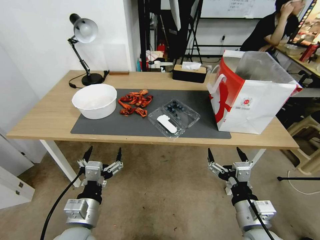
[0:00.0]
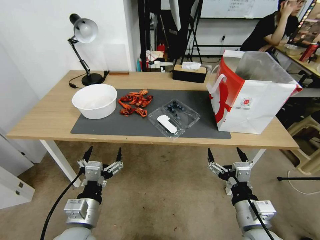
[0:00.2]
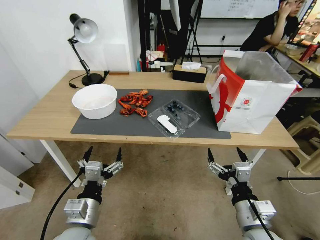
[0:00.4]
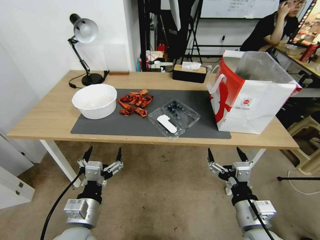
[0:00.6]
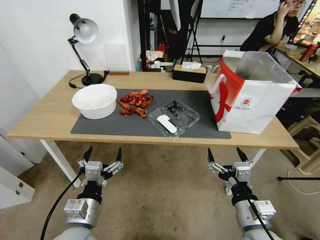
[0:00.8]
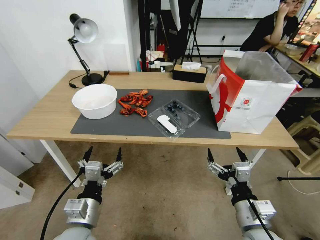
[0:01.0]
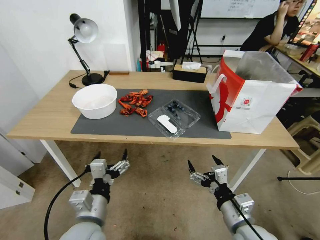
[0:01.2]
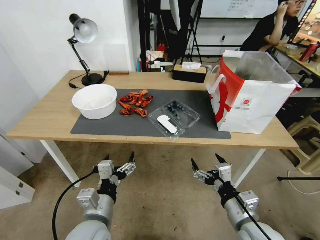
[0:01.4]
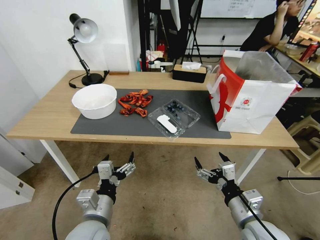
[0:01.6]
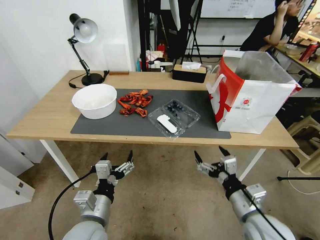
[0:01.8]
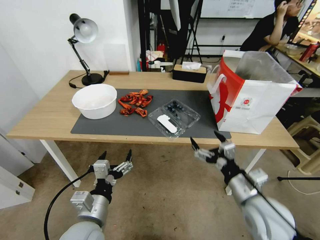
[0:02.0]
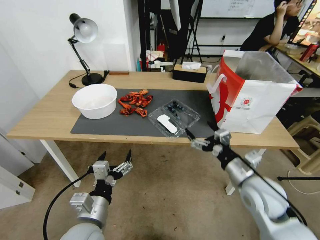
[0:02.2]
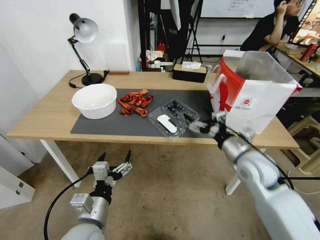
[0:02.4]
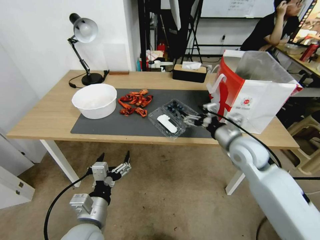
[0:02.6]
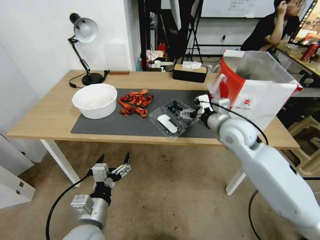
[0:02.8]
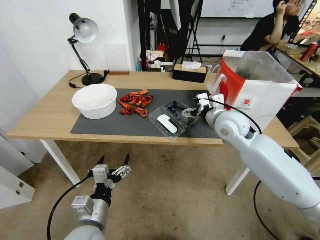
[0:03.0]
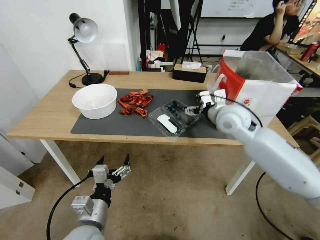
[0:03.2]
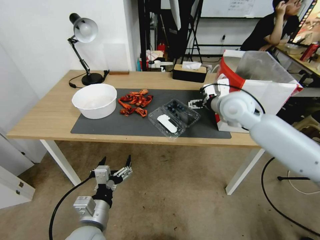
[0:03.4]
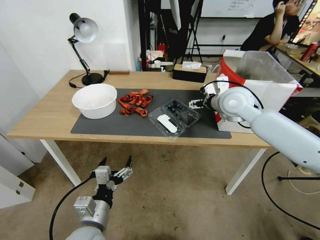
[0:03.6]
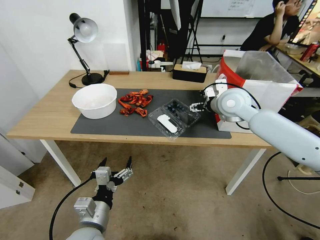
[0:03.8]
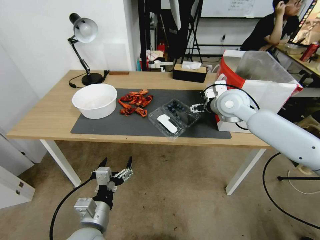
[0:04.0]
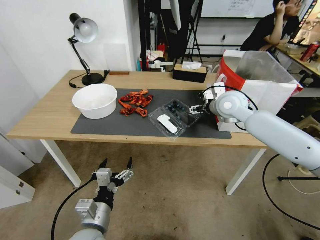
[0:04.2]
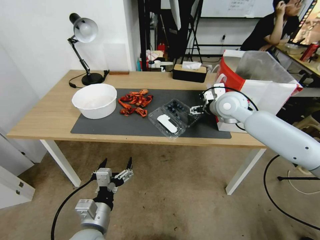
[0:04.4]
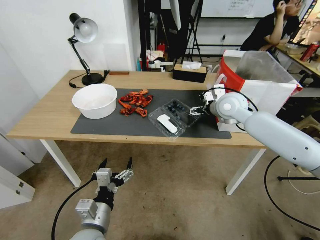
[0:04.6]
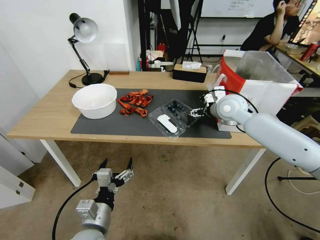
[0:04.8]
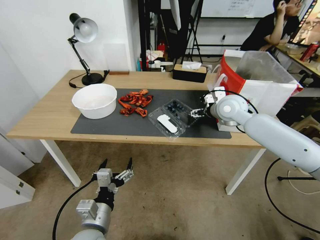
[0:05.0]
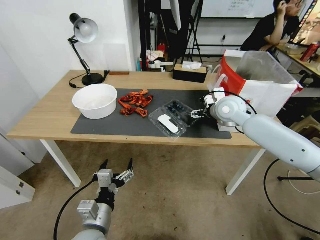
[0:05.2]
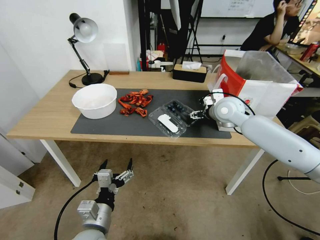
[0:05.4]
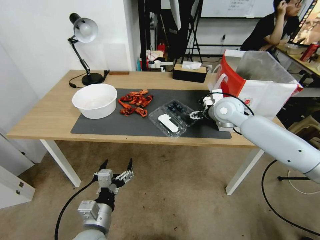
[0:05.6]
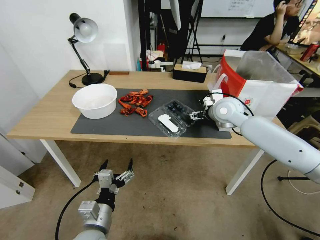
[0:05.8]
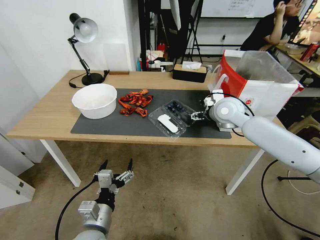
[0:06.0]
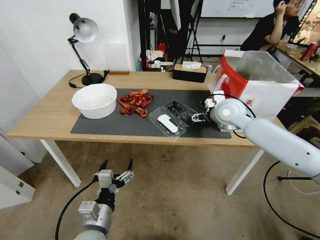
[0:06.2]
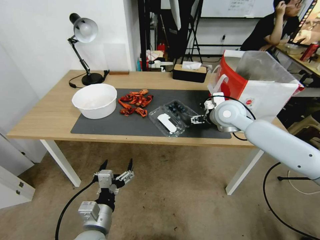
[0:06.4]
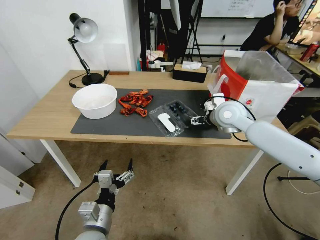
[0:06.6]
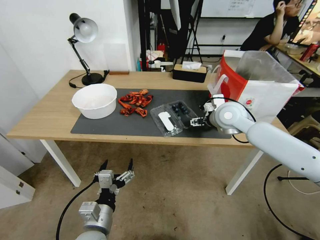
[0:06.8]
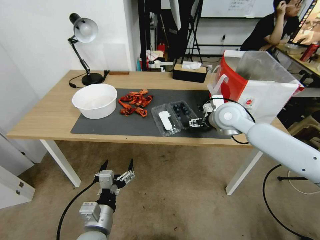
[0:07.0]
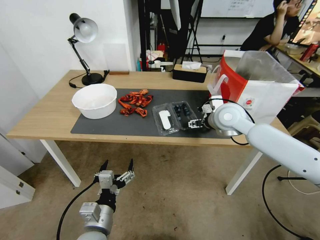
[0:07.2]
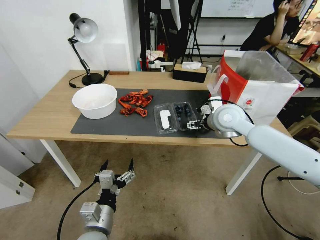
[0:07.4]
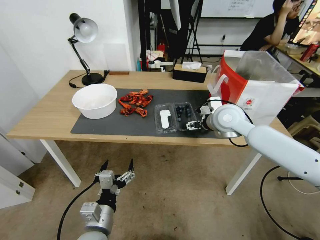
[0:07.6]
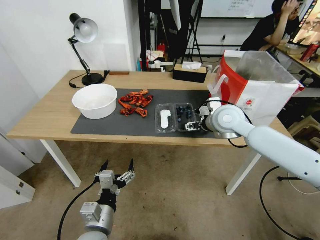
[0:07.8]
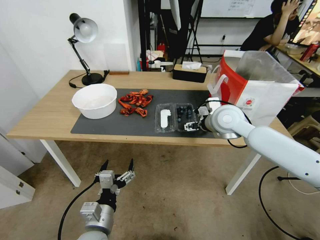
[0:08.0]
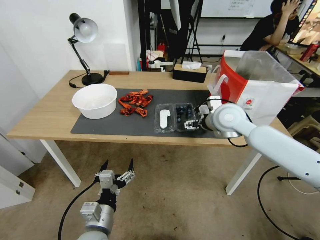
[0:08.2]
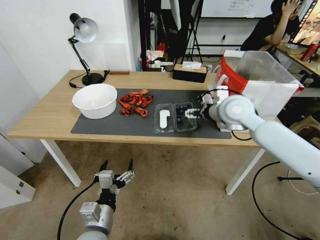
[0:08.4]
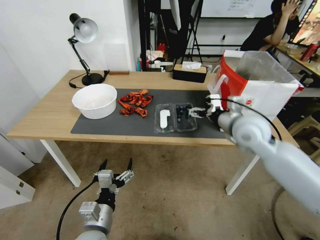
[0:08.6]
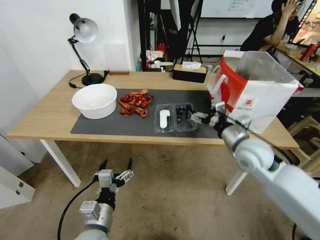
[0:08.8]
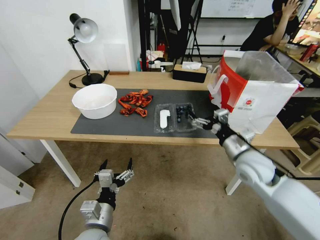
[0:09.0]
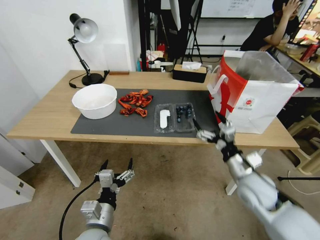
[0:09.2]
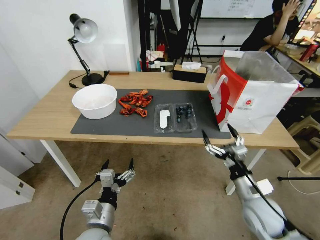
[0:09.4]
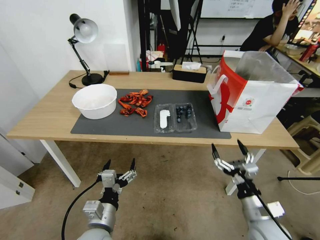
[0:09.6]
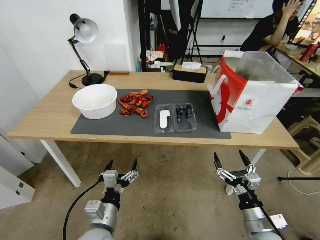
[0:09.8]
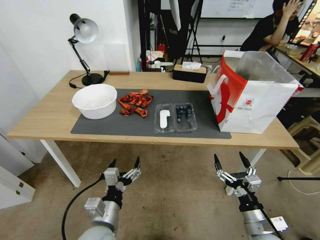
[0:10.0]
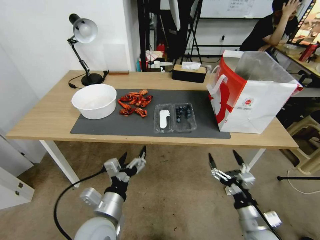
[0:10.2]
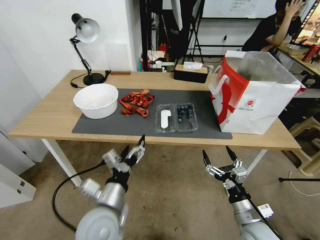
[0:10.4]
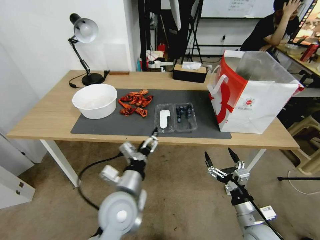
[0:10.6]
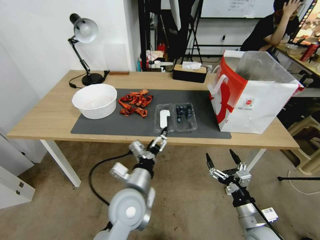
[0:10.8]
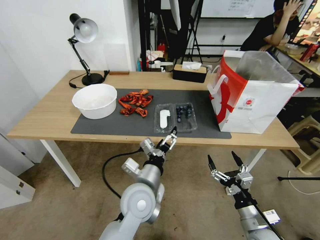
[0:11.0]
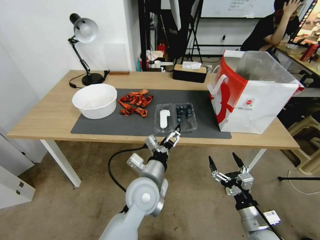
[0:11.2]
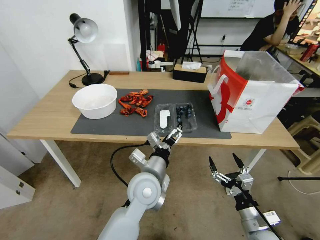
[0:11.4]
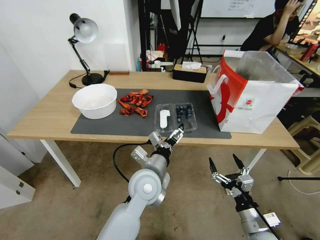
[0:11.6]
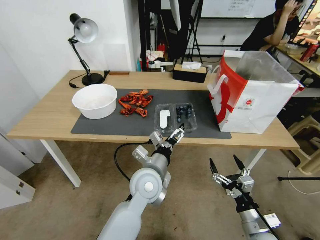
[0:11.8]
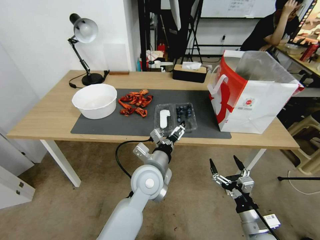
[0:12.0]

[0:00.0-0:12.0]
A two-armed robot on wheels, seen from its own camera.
Task of the whole recording: Close the takeout container lid, then place the container into the takeout bag.
0:01.6 to 0:03.0: The right gripper shifts approximately 30 cm forward and upward.
0:03.0 to 0:04.4: The right gripper shifts approximately 5 cm forward.
0:04.4 to 0:07.6: There are only small adjustments of the grippers.
0:07.6 to 0:09.0: The right gripper moves backward, downward and to the right, some 15 cm.
0:09.0 to 0:10.4: The left gripper is displaced upward by about 5 cm, while the right gripper moves backward and downward, roughly 20 cm.
0:10.4 to 0:12.0: The left gripper heads to the right and forward, covering about 15 cm.

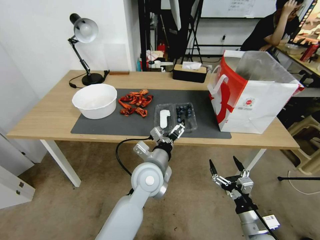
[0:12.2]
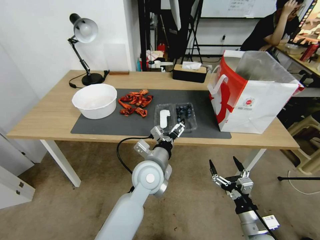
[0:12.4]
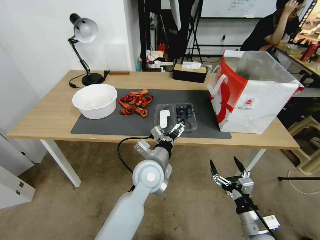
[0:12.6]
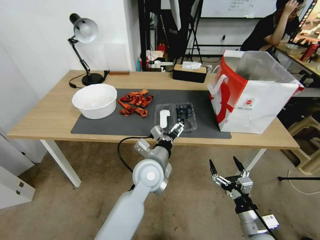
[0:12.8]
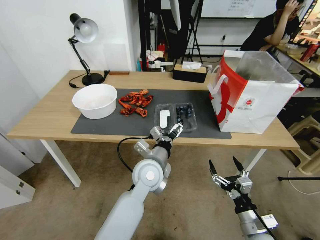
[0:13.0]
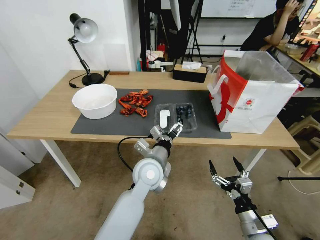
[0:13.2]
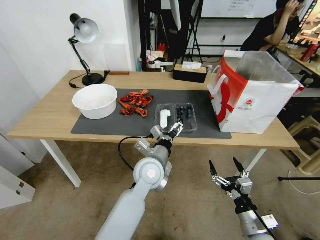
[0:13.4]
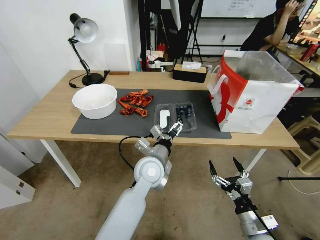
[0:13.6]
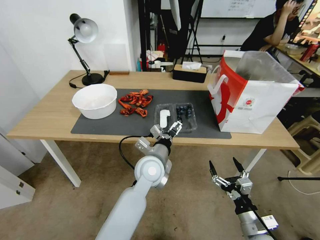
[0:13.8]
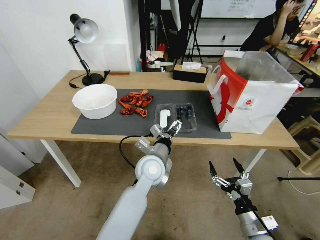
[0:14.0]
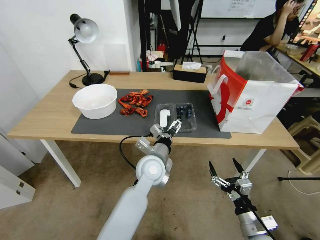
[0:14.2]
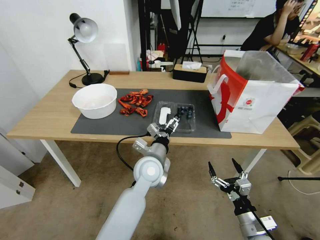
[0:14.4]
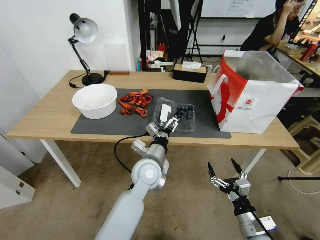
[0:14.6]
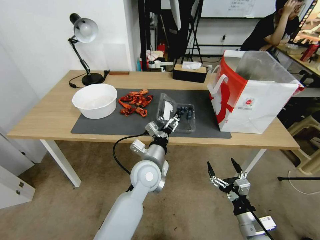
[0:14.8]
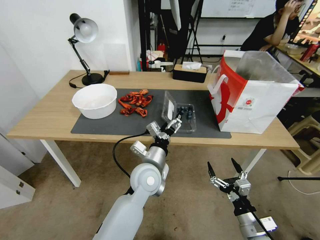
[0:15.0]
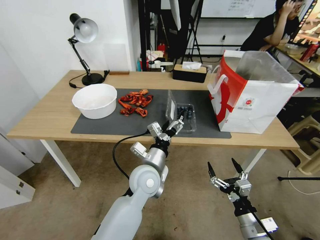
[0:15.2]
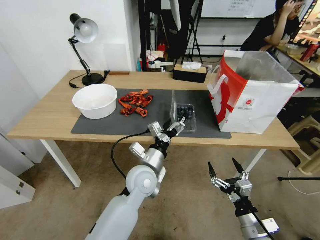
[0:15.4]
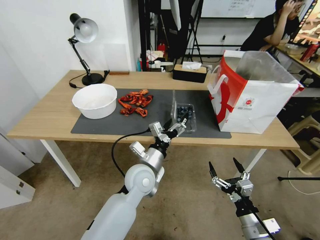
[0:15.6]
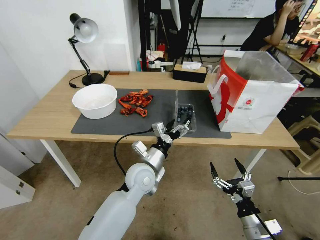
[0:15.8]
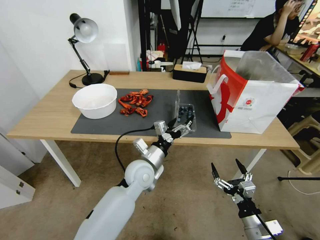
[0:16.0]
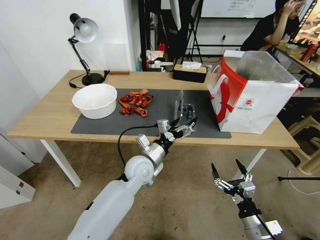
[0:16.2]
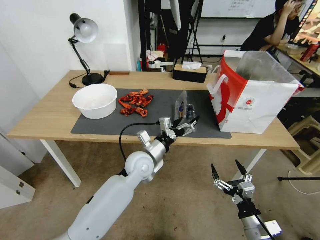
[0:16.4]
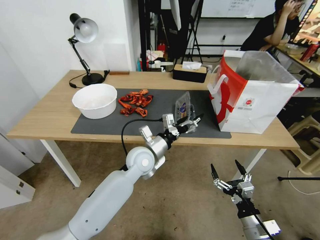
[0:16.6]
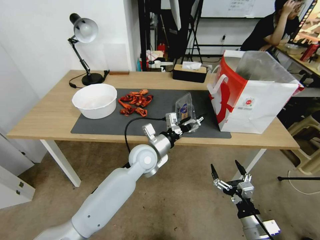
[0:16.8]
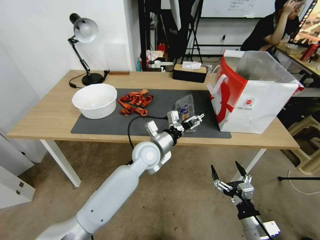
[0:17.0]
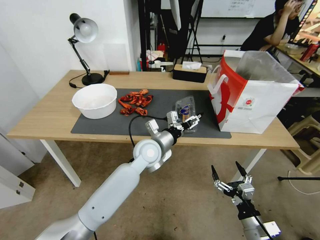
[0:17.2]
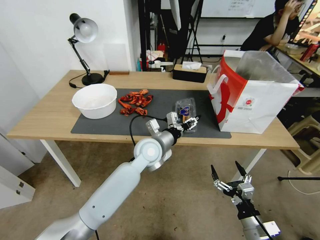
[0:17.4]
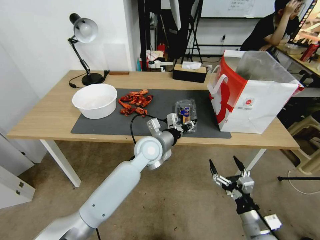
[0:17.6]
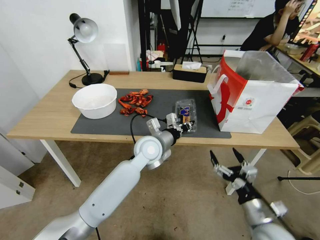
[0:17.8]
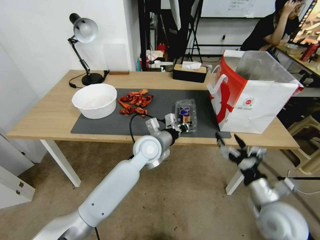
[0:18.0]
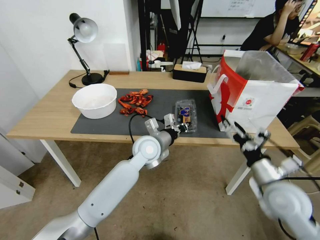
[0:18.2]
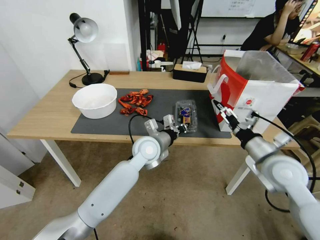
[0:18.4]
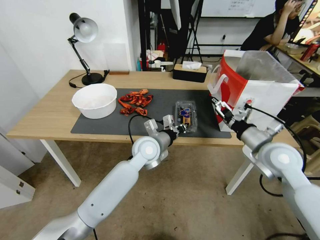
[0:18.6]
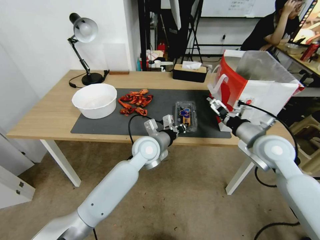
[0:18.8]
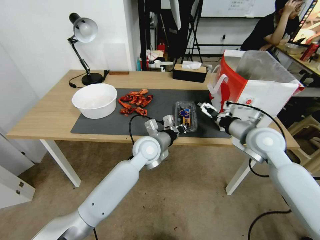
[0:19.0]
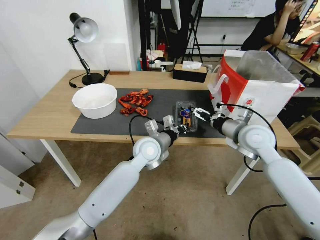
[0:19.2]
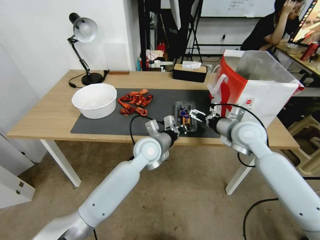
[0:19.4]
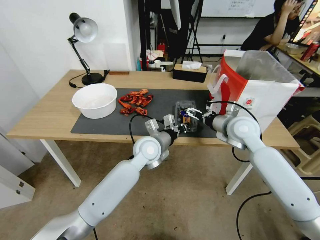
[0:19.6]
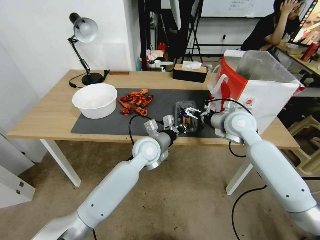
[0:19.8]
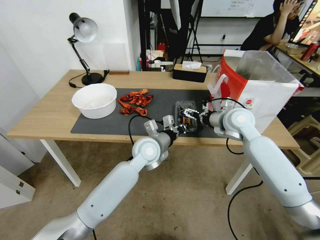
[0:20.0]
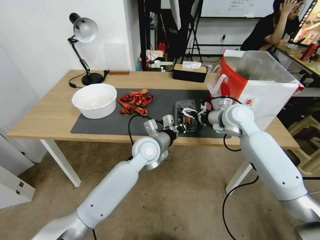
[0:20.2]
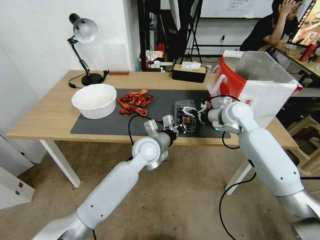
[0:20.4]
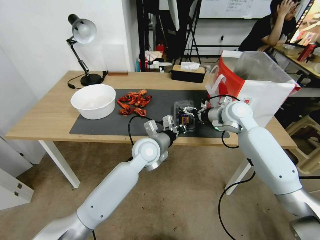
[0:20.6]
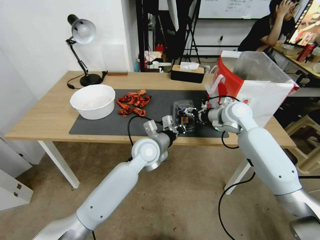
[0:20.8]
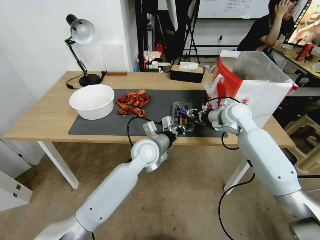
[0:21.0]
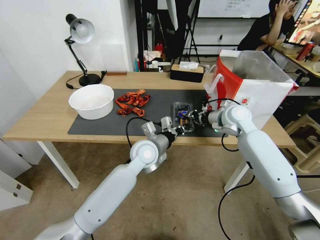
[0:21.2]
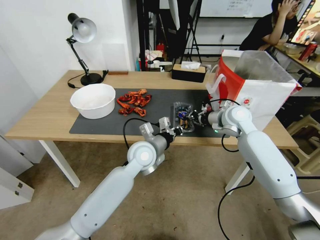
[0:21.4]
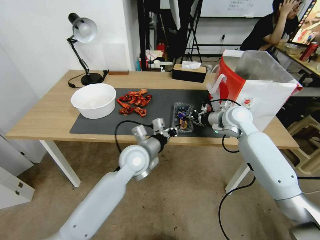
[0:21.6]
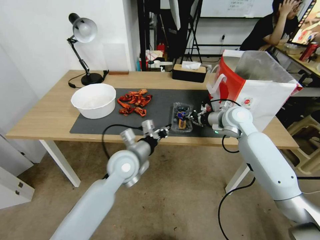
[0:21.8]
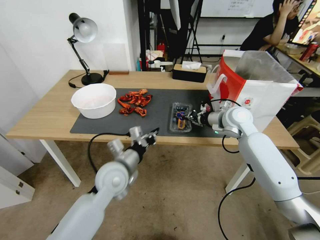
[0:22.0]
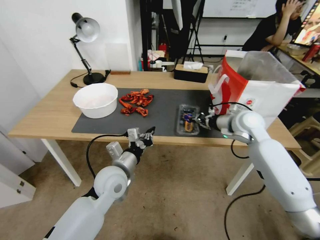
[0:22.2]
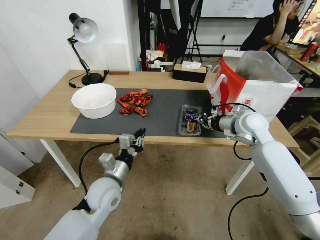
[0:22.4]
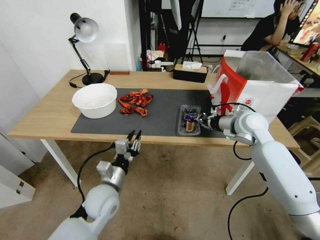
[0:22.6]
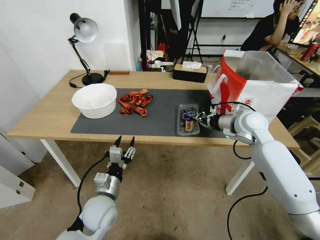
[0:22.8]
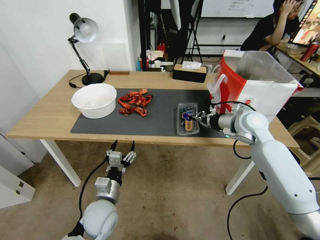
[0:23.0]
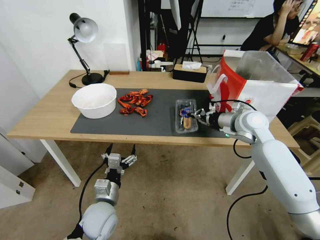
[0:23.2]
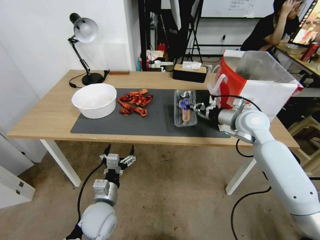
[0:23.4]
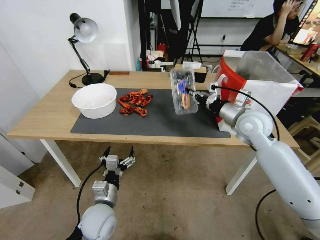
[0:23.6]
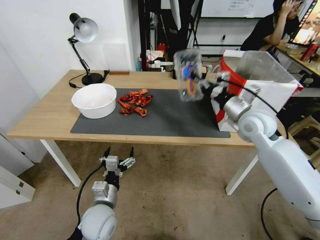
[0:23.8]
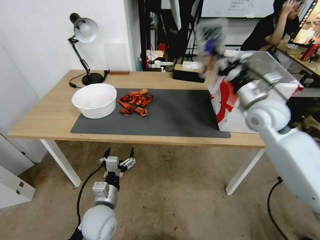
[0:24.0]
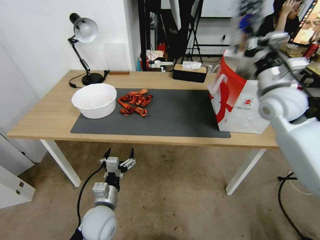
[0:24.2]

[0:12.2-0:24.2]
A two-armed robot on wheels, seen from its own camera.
Task of the whole recording: Close the takeout container lid, then place the container into the takeout bag.
0:12.2 to 0:13.8: There are only small adjustments of the grippers.
0:15.2 to 0:16.6: The left gripper moves forward, roughly 5 cm.
0:16.6 to 0:18.2: The left gripper closes; the right gripper moves upward and forward, some 20 cm.
0:18.2 to 0:19.8: The right gripper moves forward, some 20 cm.
0:19.8 to 0:21.2: The right gripper closes.
0:21.2 to 0:22.6: The right gripper changes place by approximately 5 cm, while the left gripper is displaced backward, to the left and downward by some 20 cm.
0:22.6 to 0:24.2: The left gripper changes place by about 5 cm, and opens its fingers, while the right gripper shifts approximately 10 cm upward.
